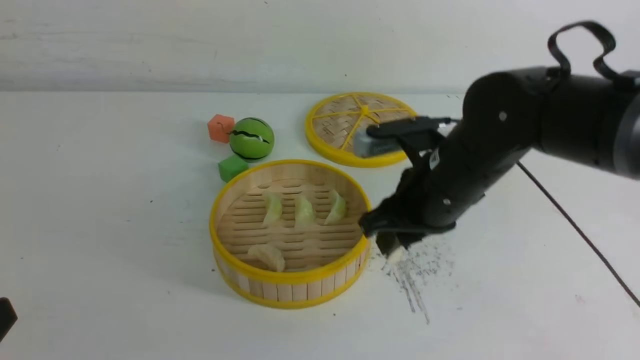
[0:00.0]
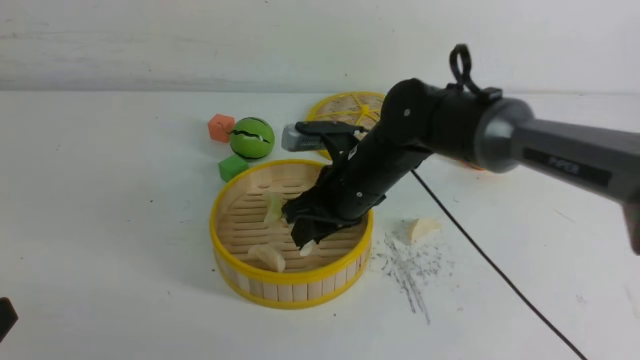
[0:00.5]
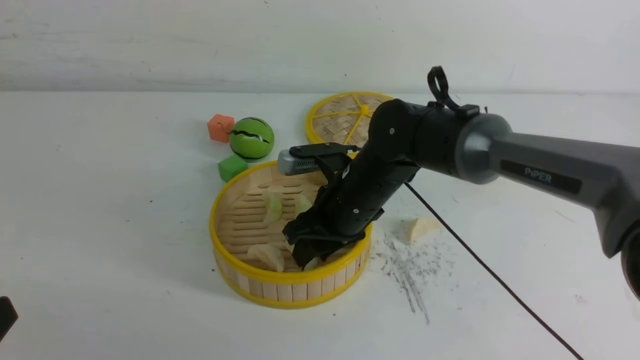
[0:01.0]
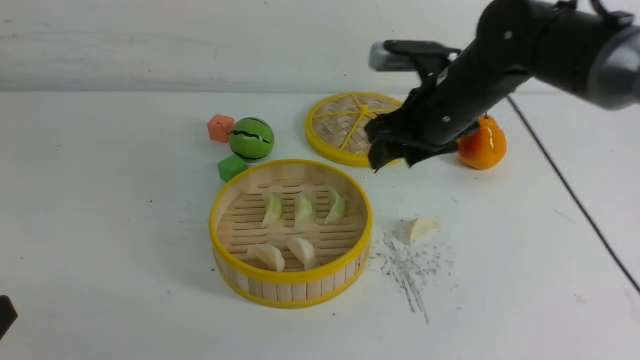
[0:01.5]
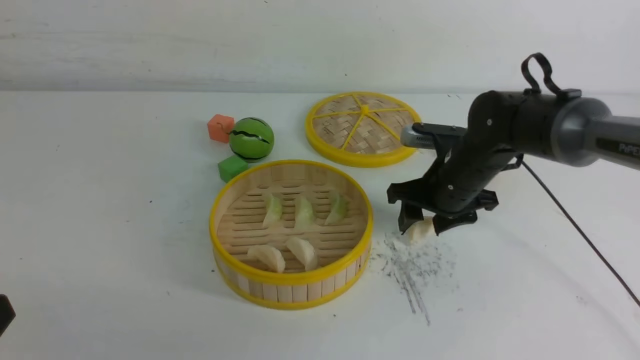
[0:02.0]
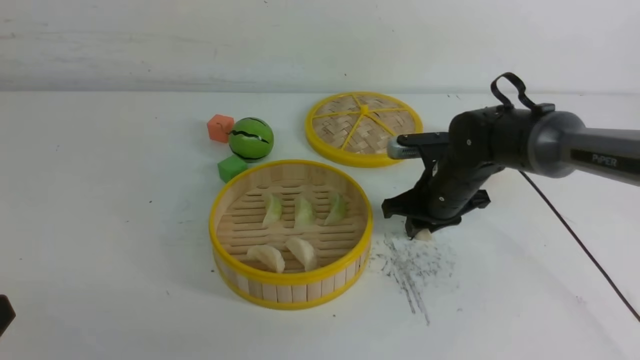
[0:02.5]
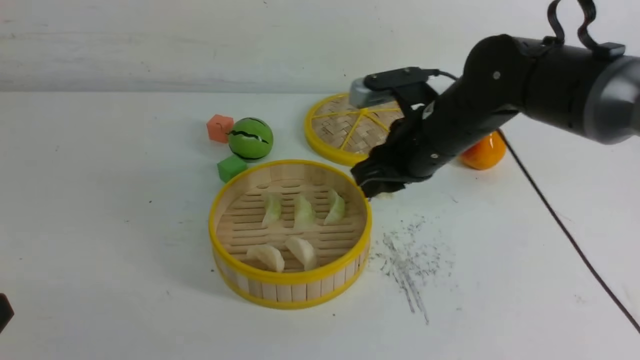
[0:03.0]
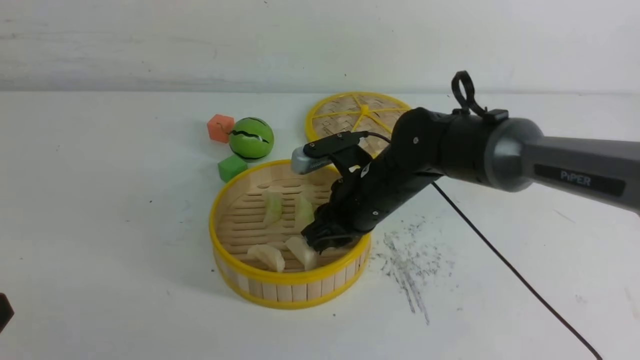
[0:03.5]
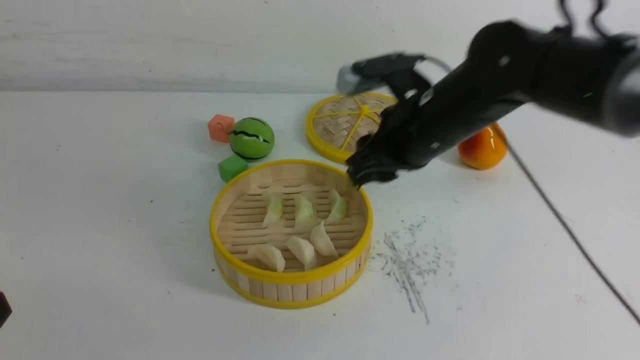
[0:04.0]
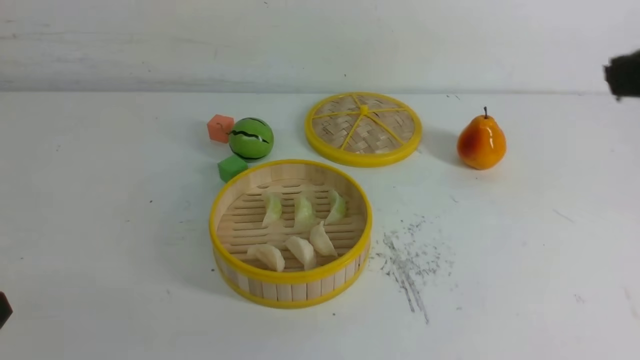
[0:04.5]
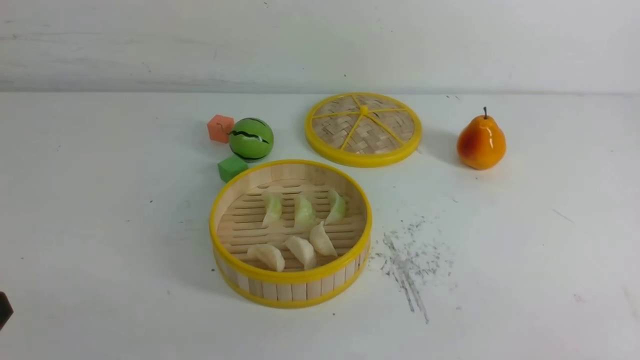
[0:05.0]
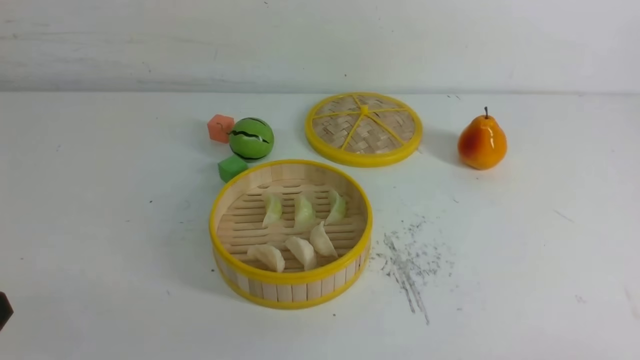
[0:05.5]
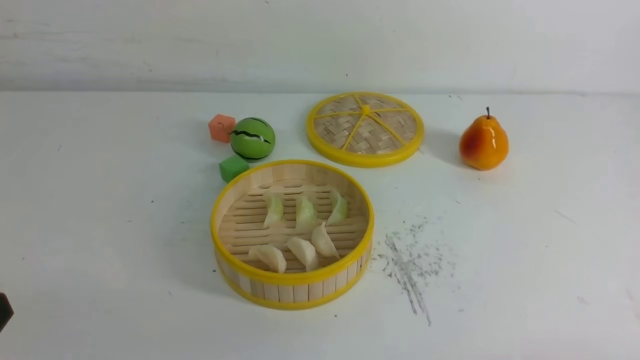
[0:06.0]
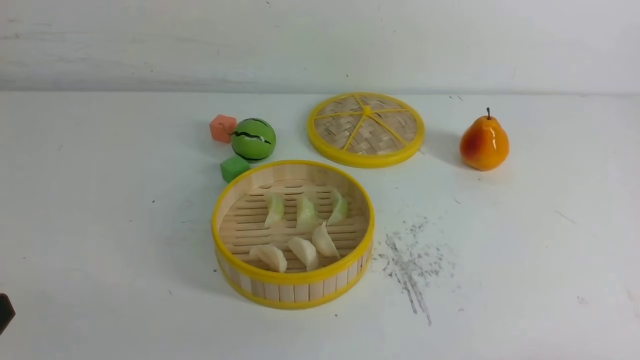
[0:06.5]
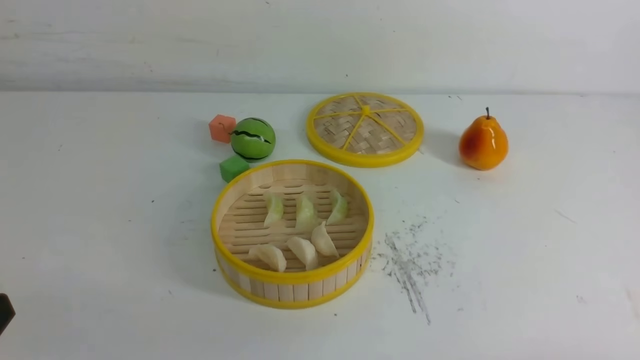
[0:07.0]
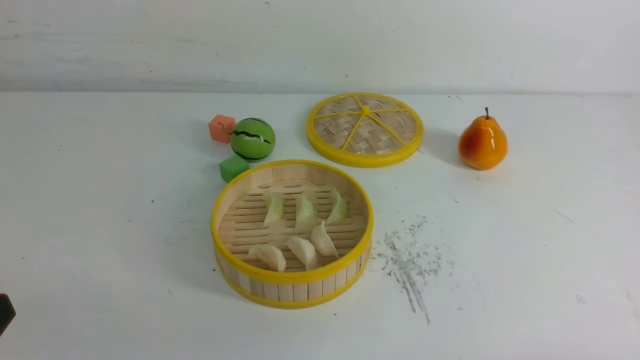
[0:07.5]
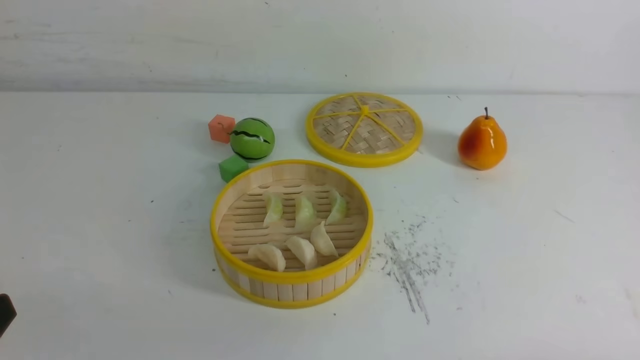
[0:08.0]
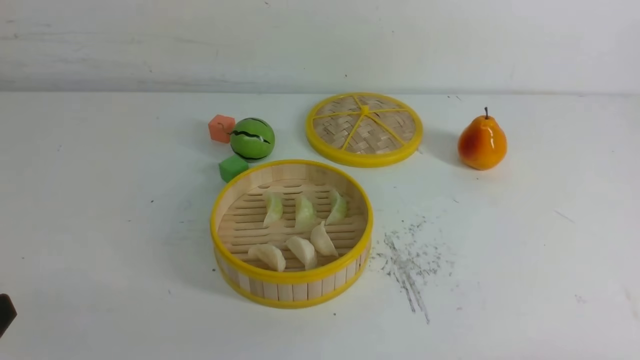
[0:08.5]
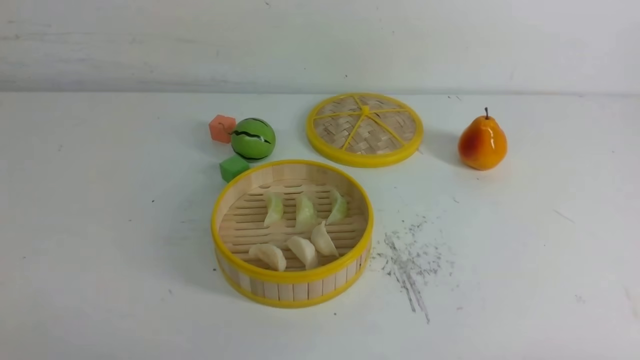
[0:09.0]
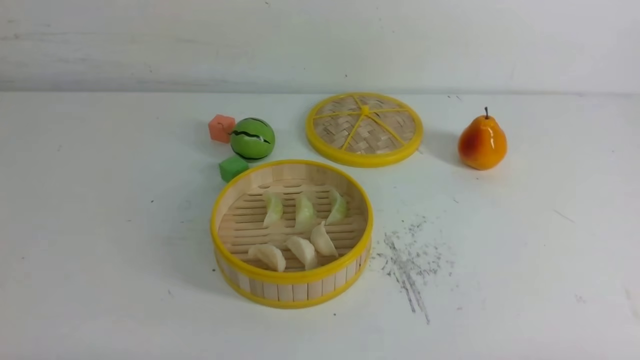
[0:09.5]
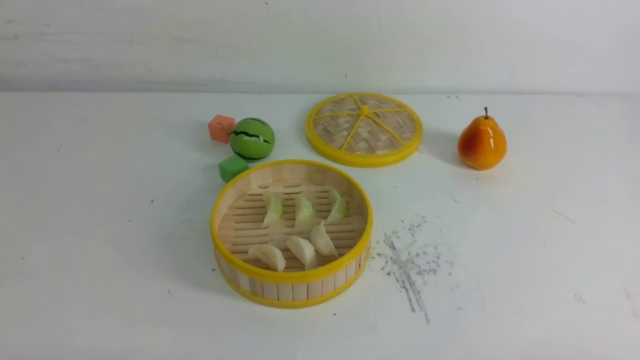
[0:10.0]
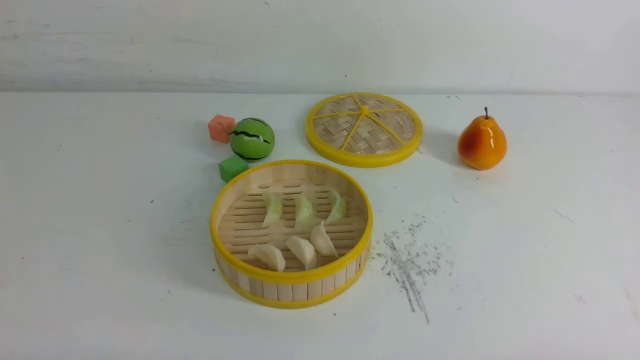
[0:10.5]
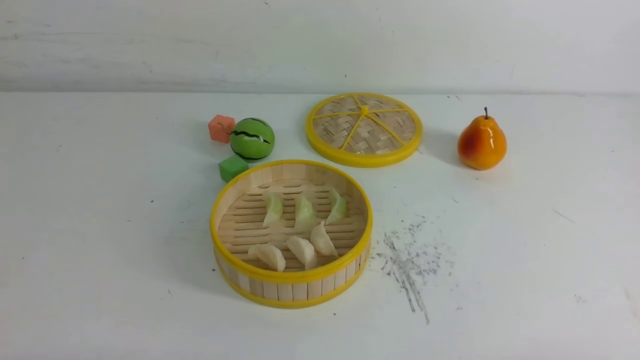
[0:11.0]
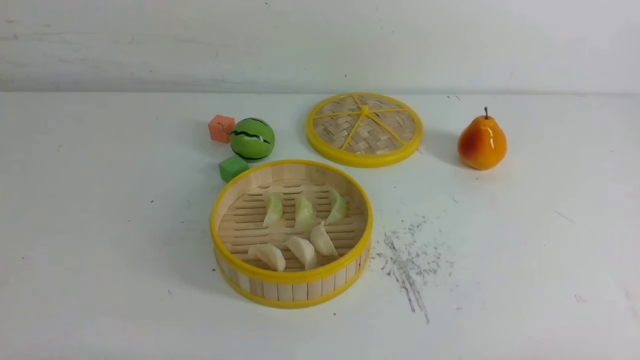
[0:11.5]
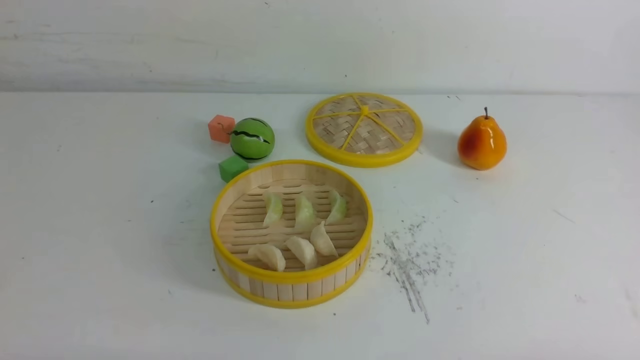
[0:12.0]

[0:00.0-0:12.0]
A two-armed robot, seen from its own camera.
Task of the whole recording: put the dumplings into the steamer on the white table.
Step, 0:00.0 to 0:01.0: use the right arm to put the dumpling into the steamer.
Step, 0:01.5 to 0:02.5: use the right arm to grab a dumpling.
Step, 0:03.0 to 0:03.5: use the right arm to put the dumpling into the steamer.
0:00.0 to 0:02.0: The right gripper heads forward, downward and to the right, covering approximately 15 cm, and opens up.
0:02.0 to 0:04.0: The right gripper swings up and down, roughly 15 cm each way, with 2 reversals, and closes.
0:04.0 to 0:06.0: The right gripper shifts some 40 cm backward, to the right and downward, and closes.
0:10.0 to 0:12.0: The two grippers keep their place.
